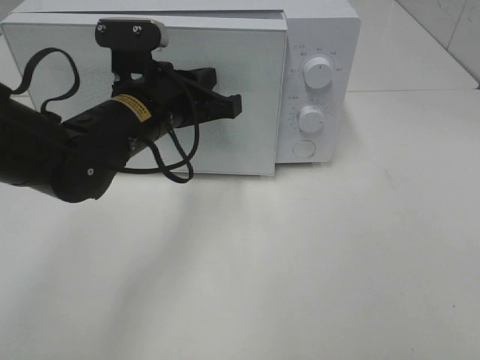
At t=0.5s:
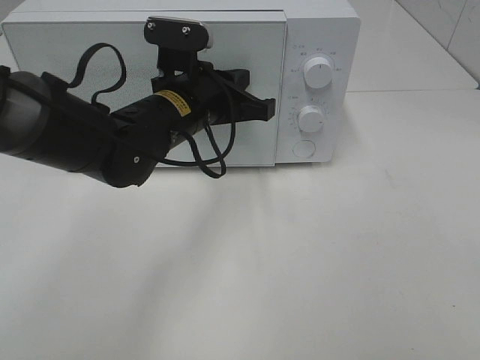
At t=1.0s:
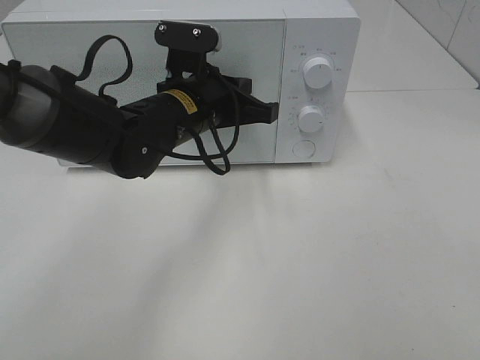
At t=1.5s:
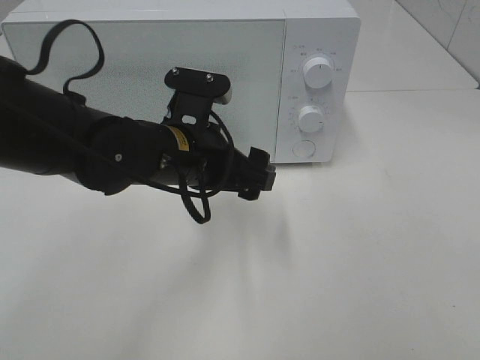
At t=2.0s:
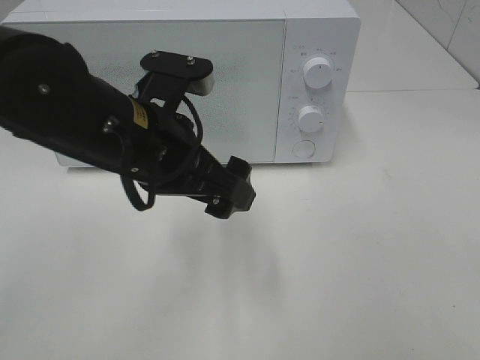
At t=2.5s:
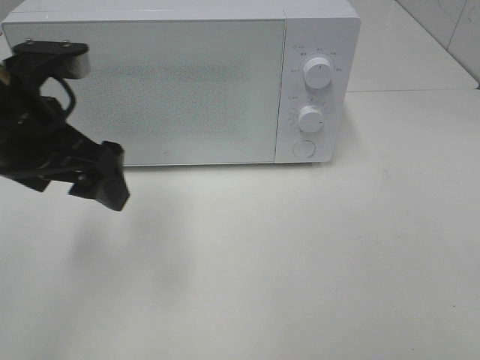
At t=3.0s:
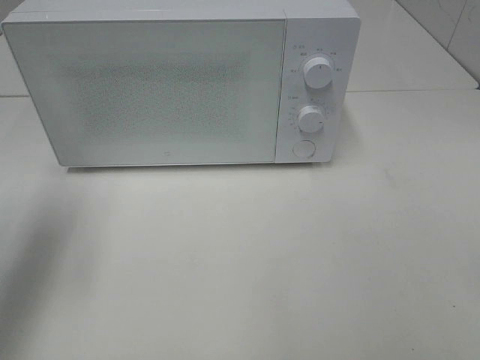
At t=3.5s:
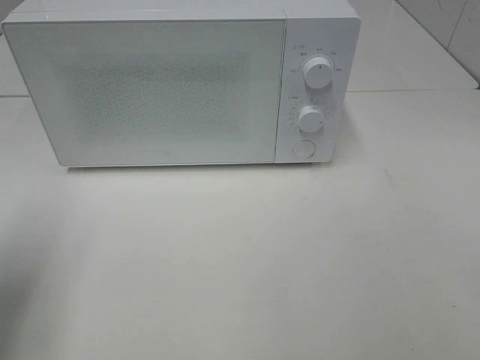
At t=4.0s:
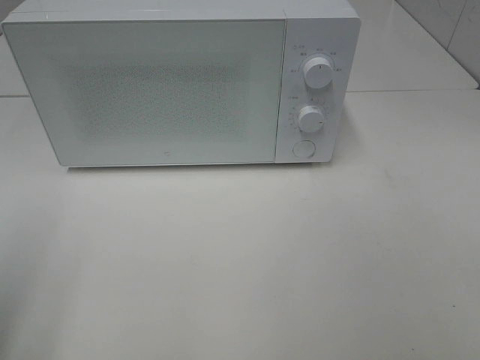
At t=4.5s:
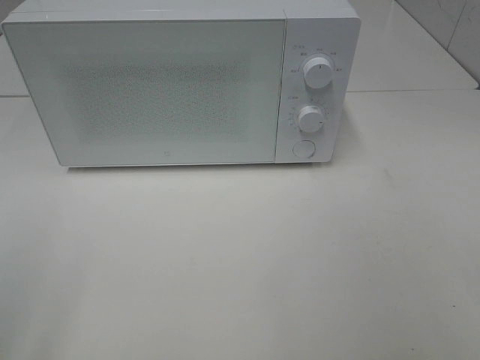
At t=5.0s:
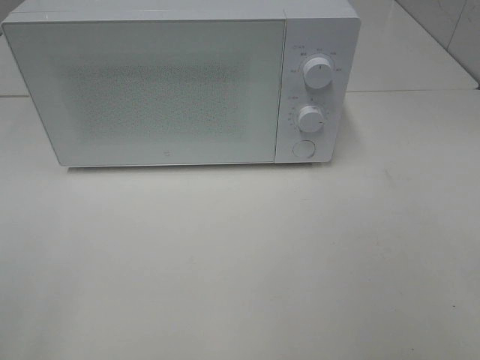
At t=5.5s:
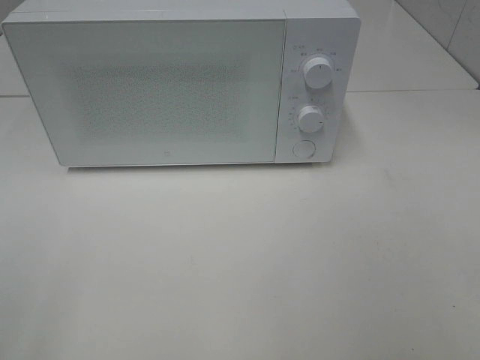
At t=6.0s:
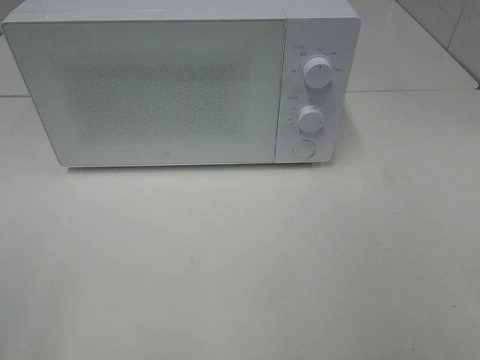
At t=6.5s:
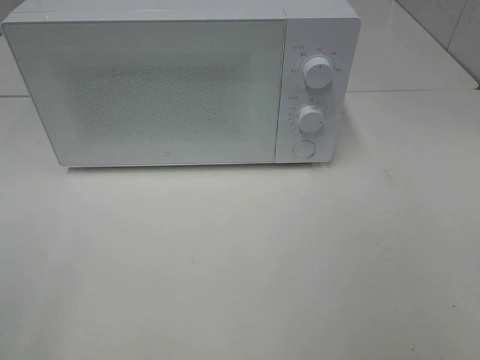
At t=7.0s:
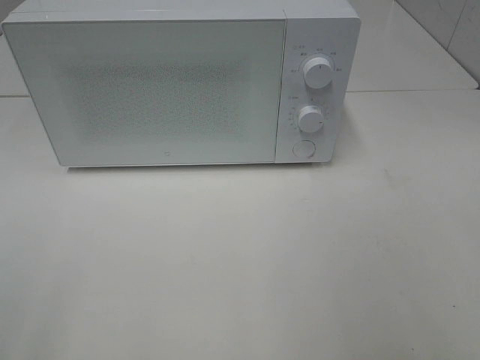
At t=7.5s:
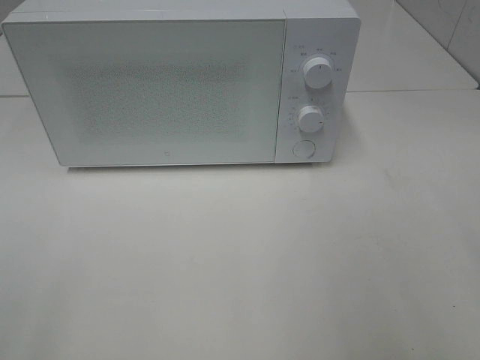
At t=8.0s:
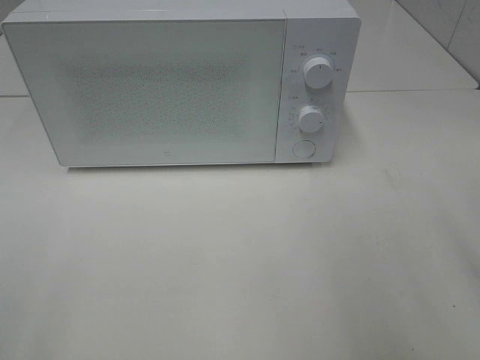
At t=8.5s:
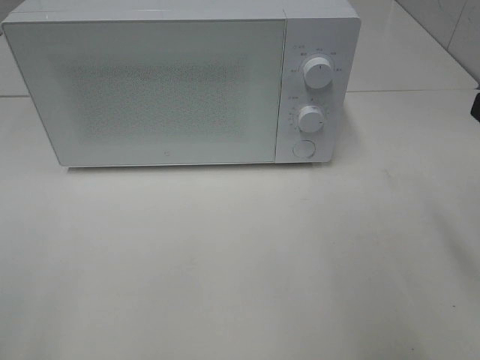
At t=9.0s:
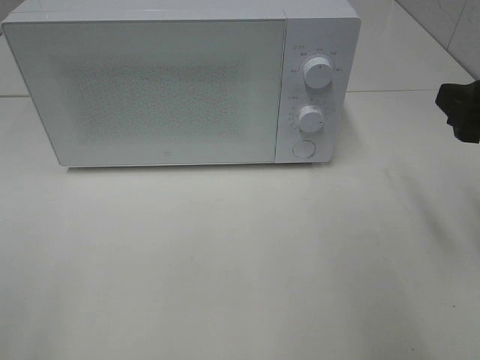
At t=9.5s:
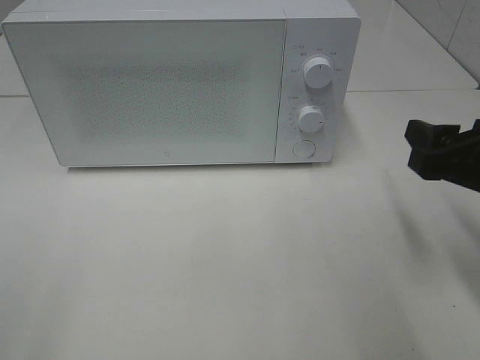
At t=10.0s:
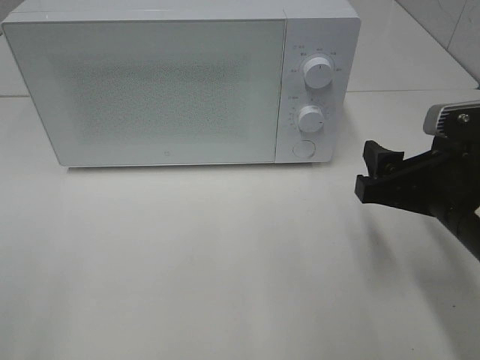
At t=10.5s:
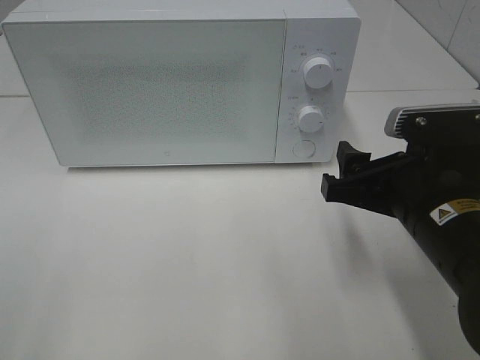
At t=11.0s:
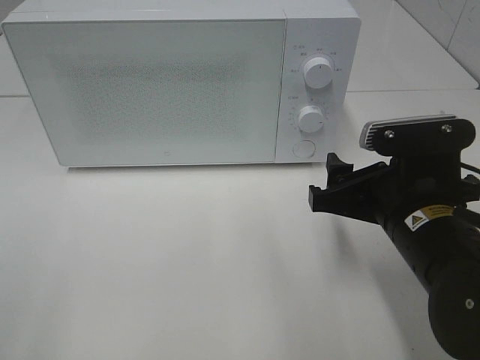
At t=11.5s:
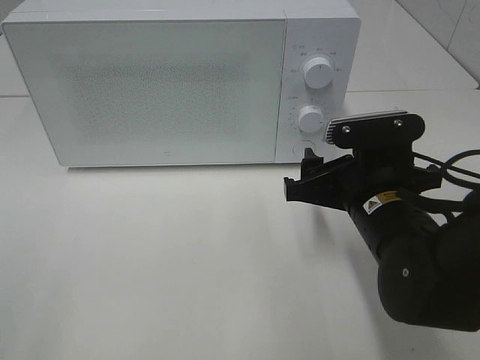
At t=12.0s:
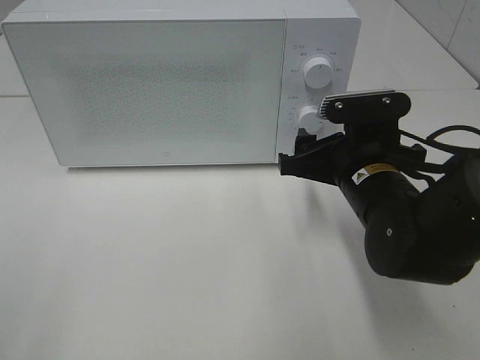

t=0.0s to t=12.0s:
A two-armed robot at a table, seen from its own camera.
Task of the whole recording: Heat the burger.
t=0.0s to t=2.0s: The left gripper travels backward by about 10 cm, and opens.
t=2.0s to t=4.0s: The left gripper shifts some 30 cm to the left and backward.
t=8.0s to t=10.0s: The right gripper goes about 15 cm downward and to the left.
t=10.0s to t=12.0s: The right gripper goes some 10 cm forward and to the left.

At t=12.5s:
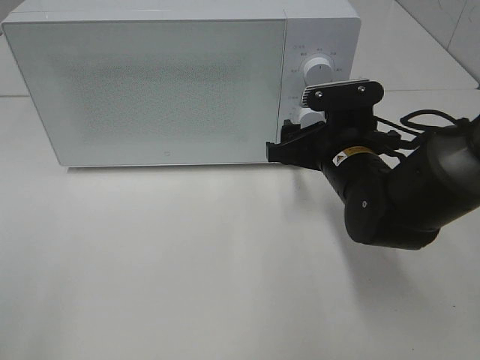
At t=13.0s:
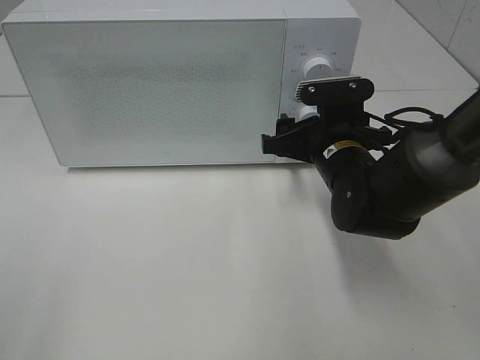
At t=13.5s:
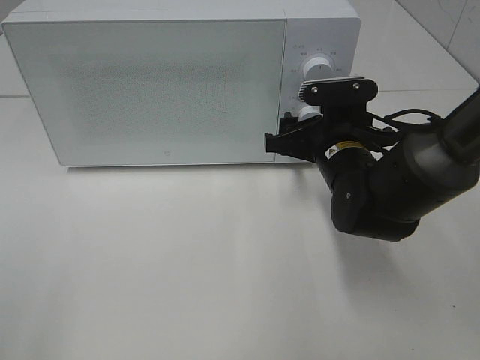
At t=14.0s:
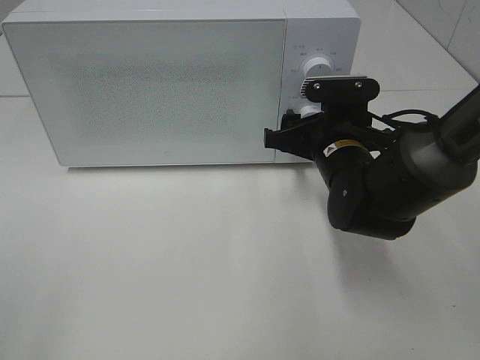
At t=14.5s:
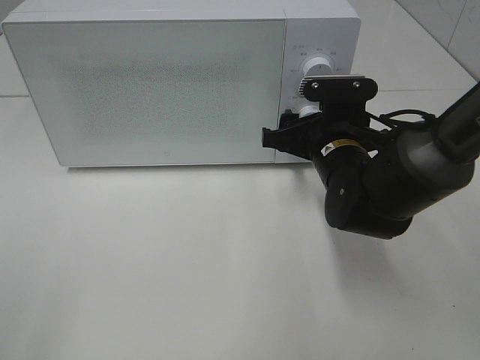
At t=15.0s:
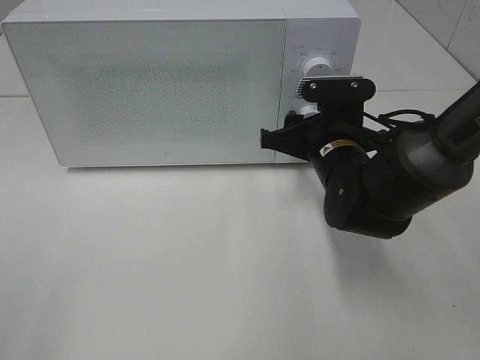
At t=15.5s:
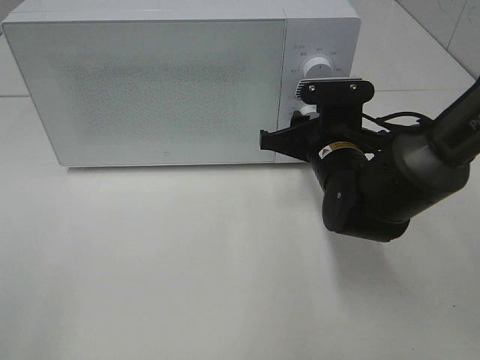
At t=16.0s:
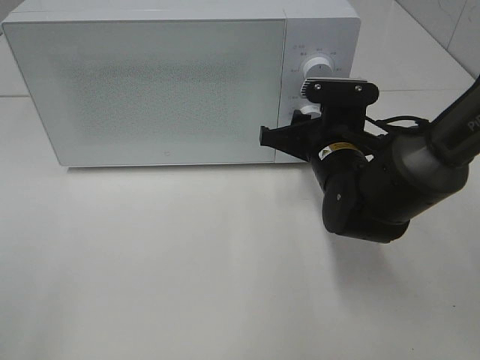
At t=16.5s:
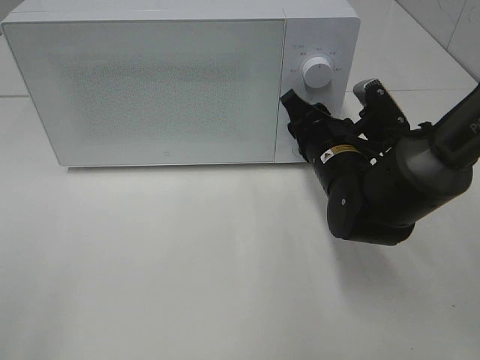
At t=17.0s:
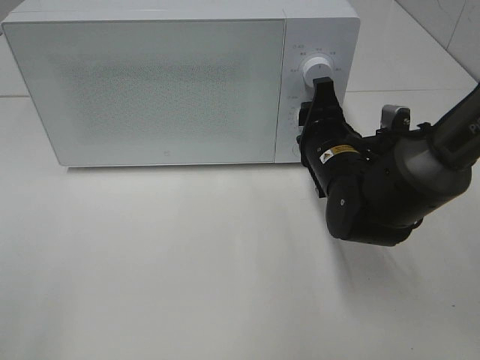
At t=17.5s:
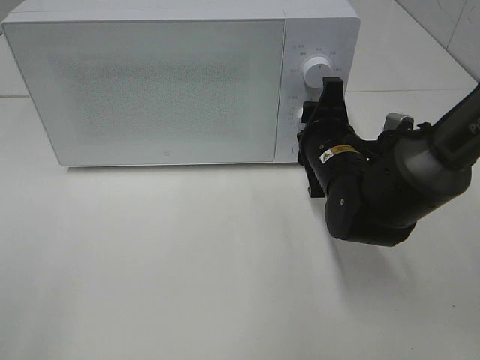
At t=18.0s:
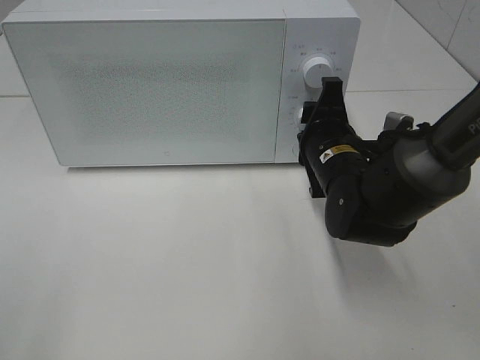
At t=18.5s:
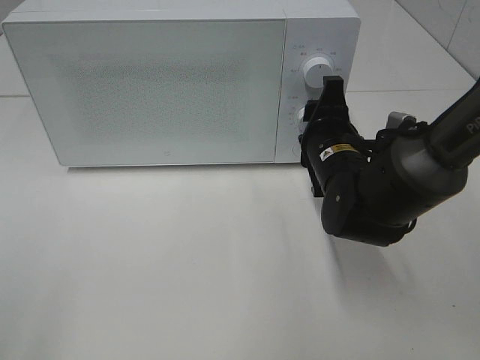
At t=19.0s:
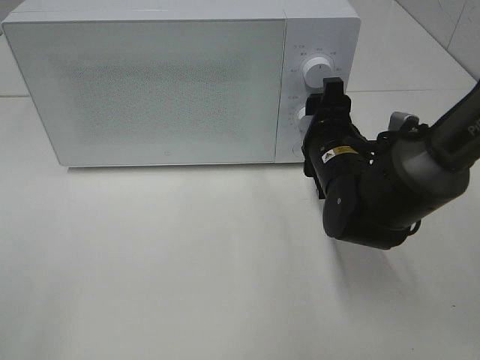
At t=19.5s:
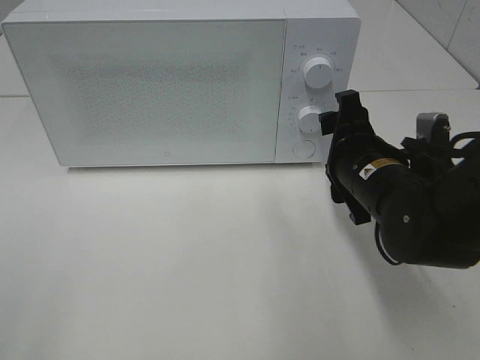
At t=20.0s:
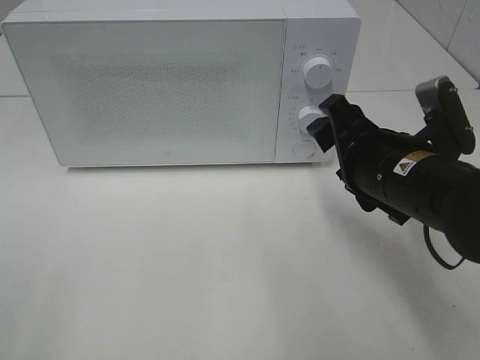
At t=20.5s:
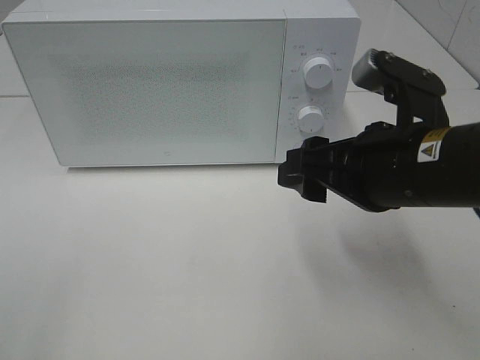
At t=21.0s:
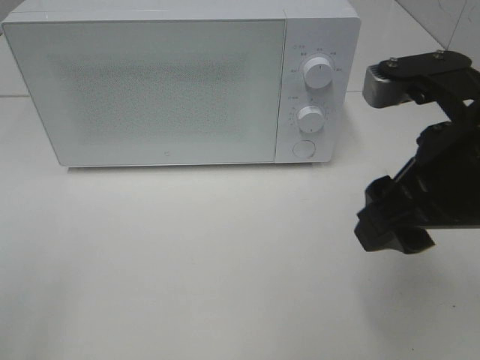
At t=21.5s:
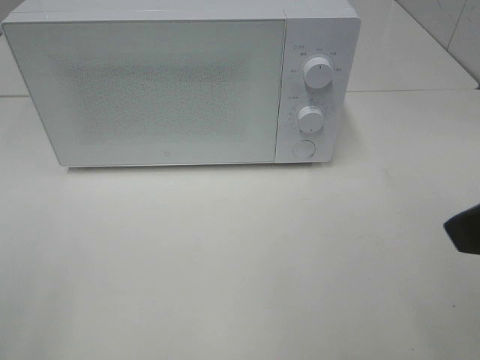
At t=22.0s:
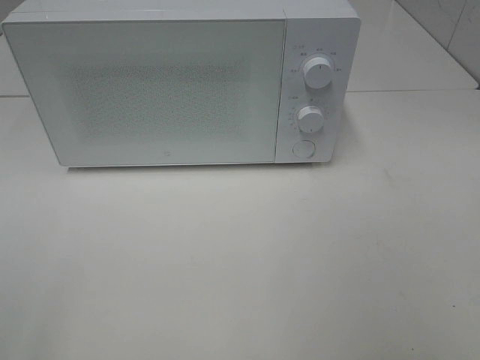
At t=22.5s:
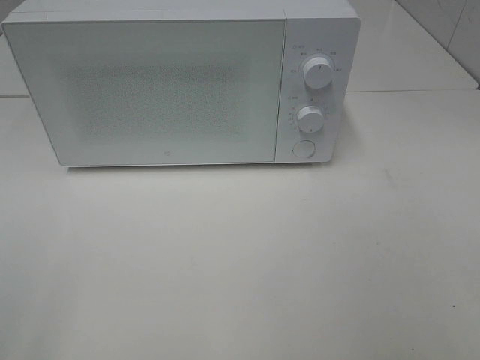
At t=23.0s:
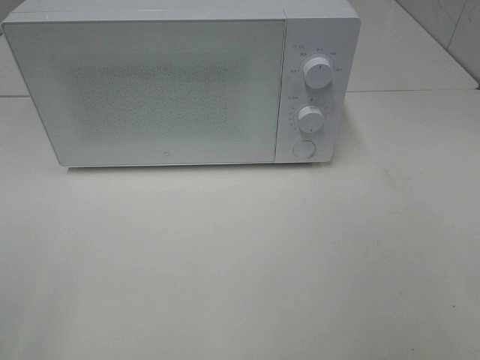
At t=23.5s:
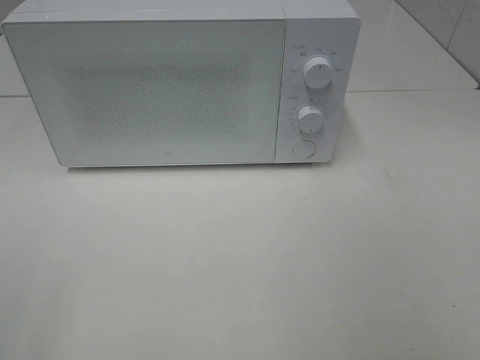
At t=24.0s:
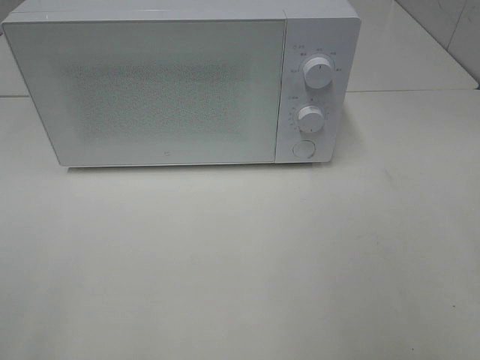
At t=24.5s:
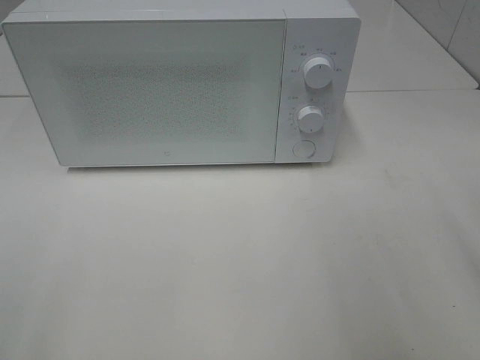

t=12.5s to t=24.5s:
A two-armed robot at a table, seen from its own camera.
Task of the whole recording: Heat the burger.
Step, t=12.5s to t=18.5s: Right hand: twist timer button.
t=12.5s to t=14.5s: The grippers make only small movements.
t=14.5s to t=16.5s: The right gripper closes.
t=18.5s to t=20.5s: The right gripper travels backward and upward by roughly 15 cm.
t=20.5s to t=22.5s: The right gripper goes about 25 cm backward and to the right.

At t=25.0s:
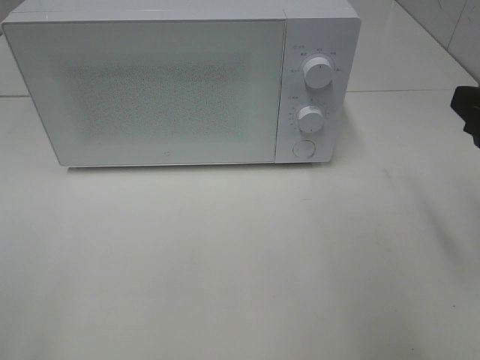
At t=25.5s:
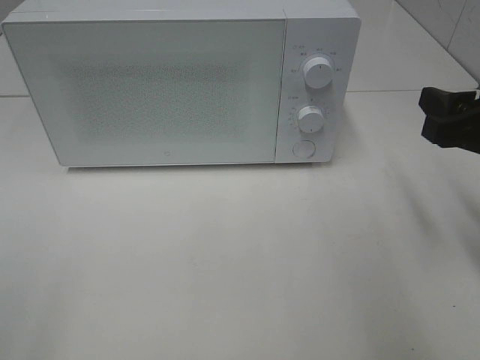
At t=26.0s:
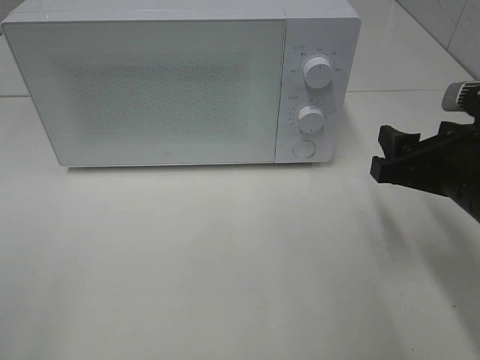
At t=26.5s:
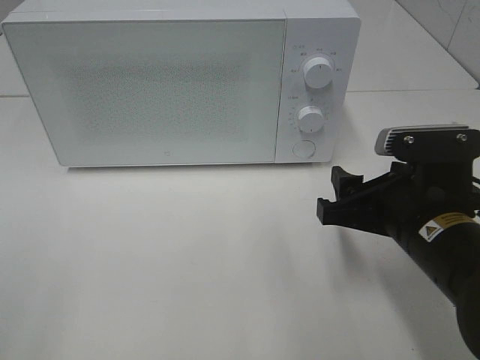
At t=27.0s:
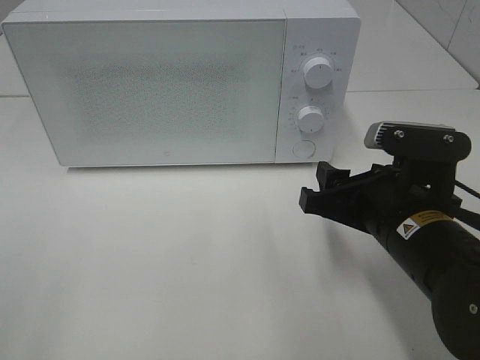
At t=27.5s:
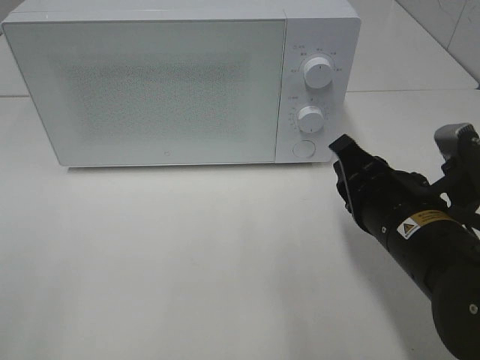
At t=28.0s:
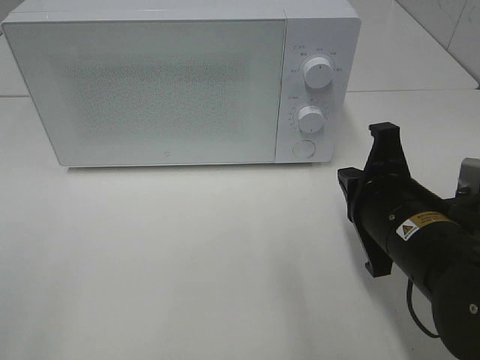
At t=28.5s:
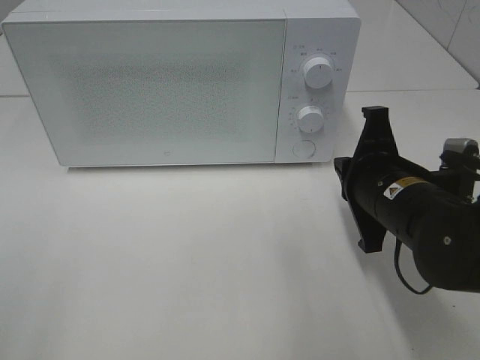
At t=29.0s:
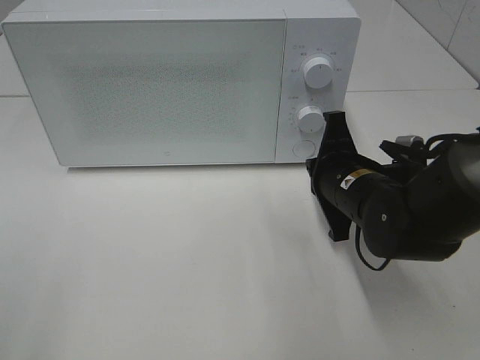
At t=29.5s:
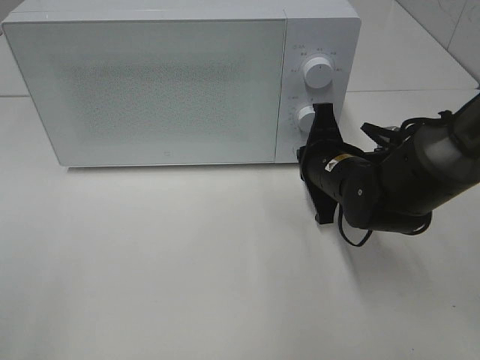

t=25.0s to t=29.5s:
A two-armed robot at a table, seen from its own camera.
Task of the whole recording: Heat the burger.
t=25.0s to t=27.0s: The right gripper shifts roughly 15 cm to the left and downward.
t=27.0s to t=29.5s: The right gripper is displaced forward by approximately 10 cm, and closes up.
